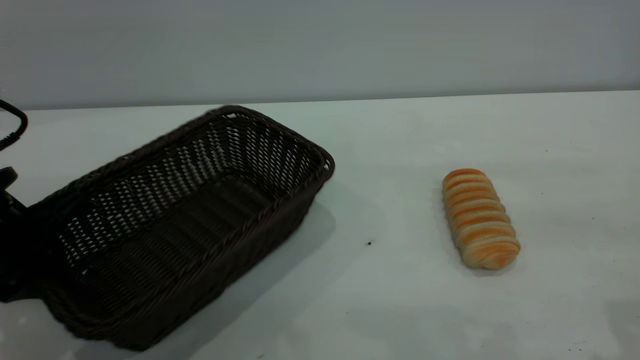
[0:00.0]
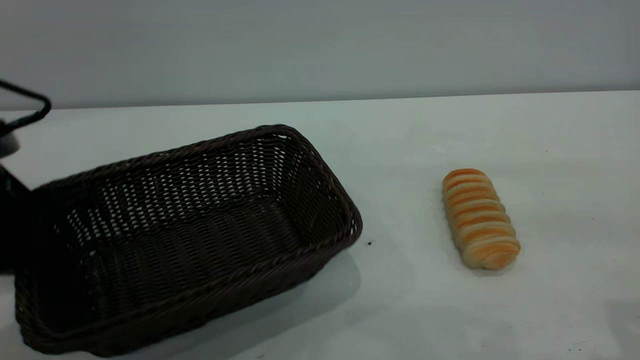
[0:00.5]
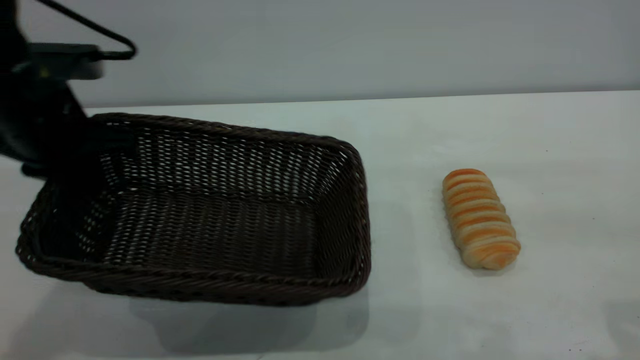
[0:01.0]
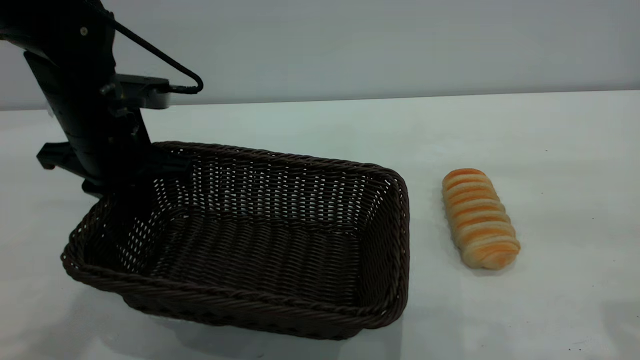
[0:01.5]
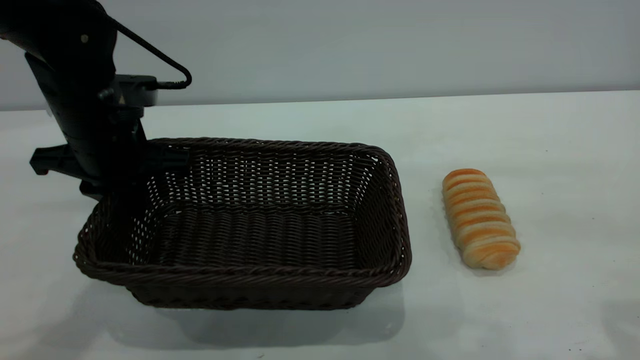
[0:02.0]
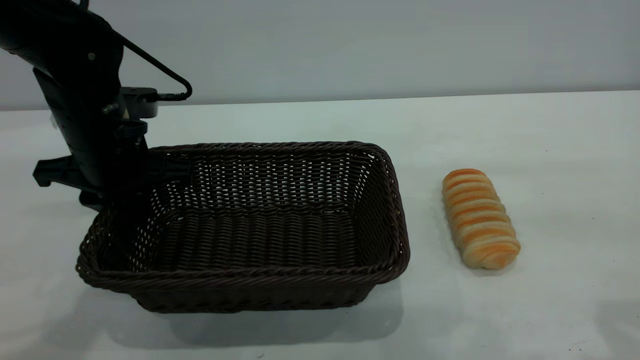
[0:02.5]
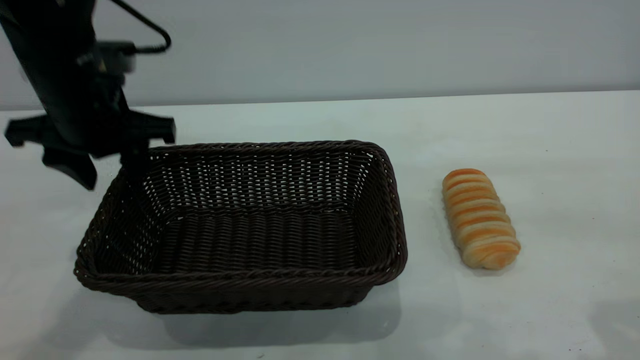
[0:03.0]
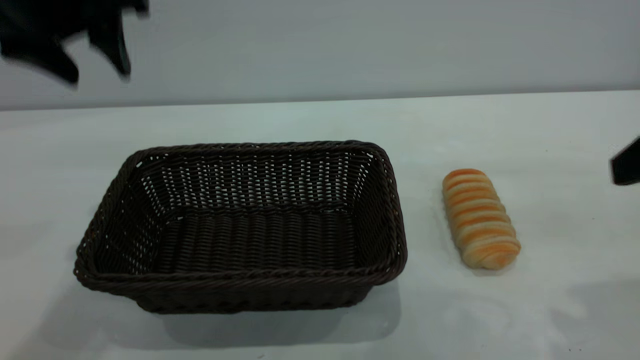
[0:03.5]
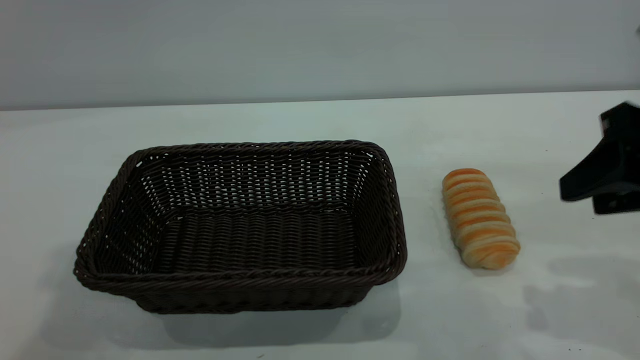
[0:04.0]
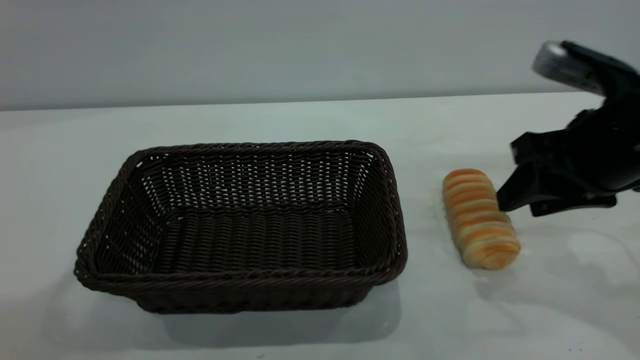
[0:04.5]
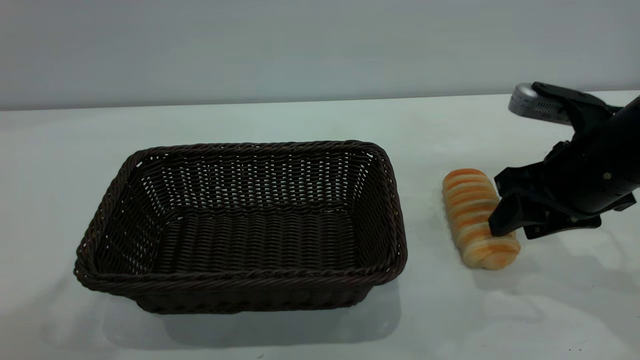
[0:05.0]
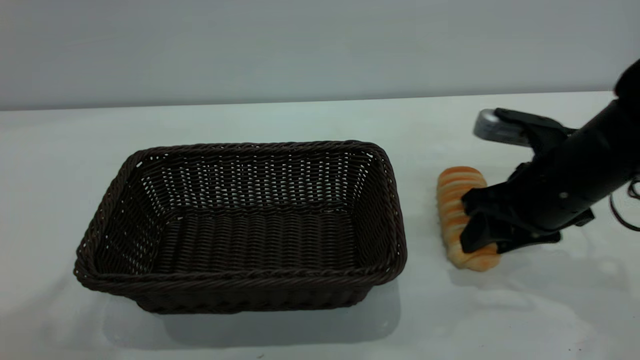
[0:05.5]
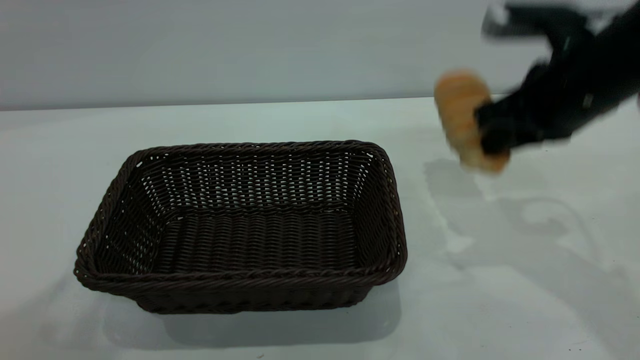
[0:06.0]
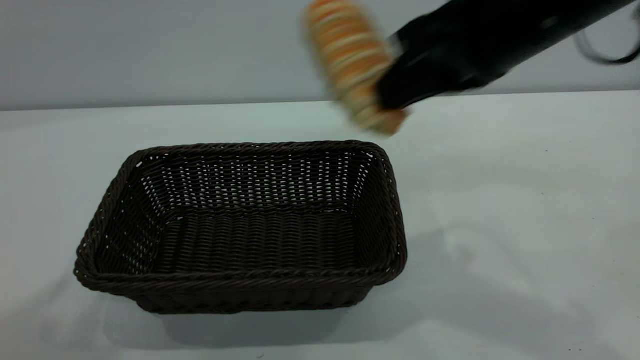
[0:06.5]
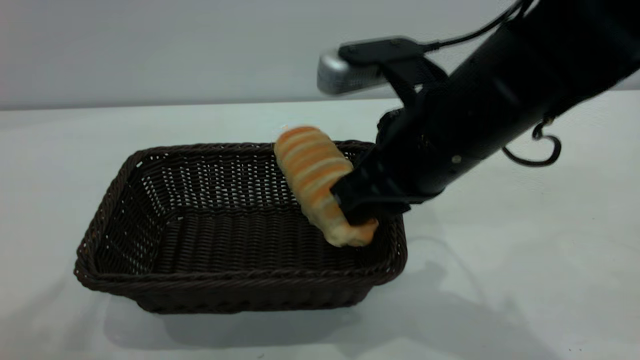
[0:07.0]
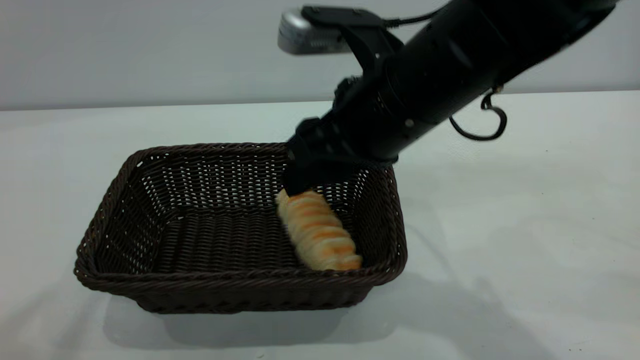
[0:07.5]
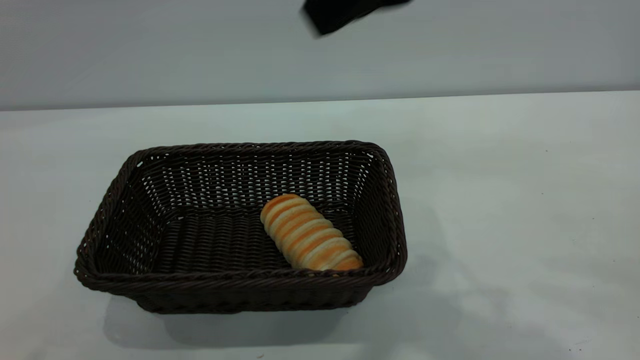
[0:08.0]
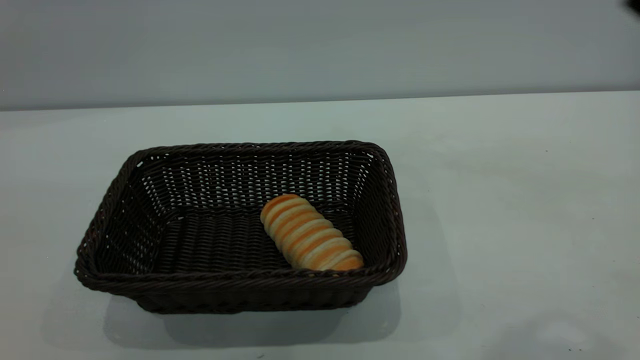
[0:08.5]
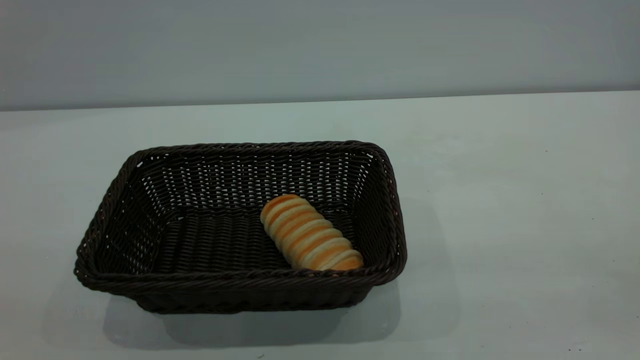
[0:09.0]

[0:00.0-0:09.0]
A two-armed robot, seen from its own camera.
Task of the whole recording: One hand grasps the black basket and places it in the middle of the table, while the other hand picks up the long bread and puts it into the black basket.
Step, 0:00.0 to 0:03.0: Move the basket to the center of view.
Step, 0:06.5 to 0:07.5: place the bread into the basket.
0:00.0 to 0:02.0: The left gripper shifts about 15 cm forward and to the right.
0:02.0 to 0:04.5: The right gripper shifts about 15 cm downward, forward and to the left. Meanwhile the left gripper is displaced upward and backward by roughly 40 cm, and opens.
0:04.5 to 0:07.0: The right gripper swings up and down, some 15 cm each way, with 2 reversals, and closes.
0:07.0 to 0:09.0: The right gripper travels backward, to the right and upward by approximately 35 cm, and opens, while the left gripper shifts some 25 cm backward, downward and to the left.

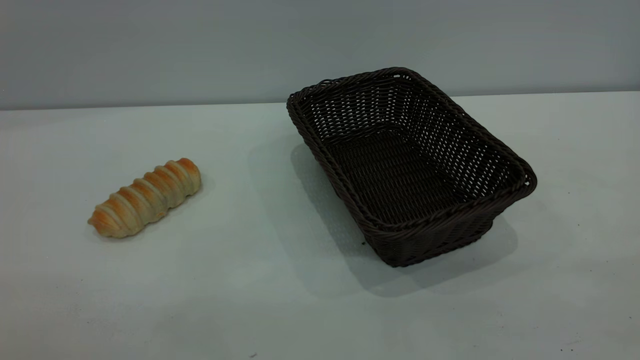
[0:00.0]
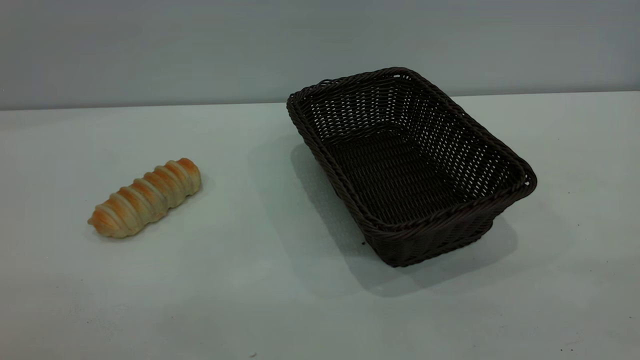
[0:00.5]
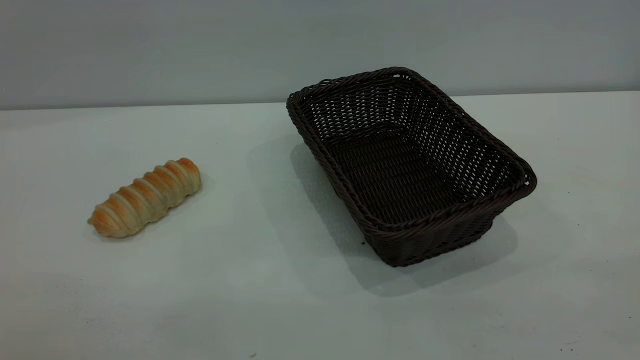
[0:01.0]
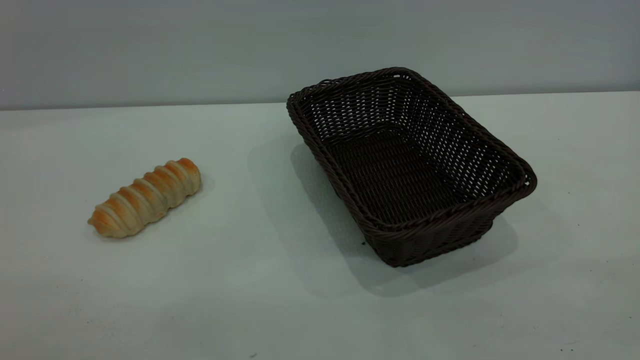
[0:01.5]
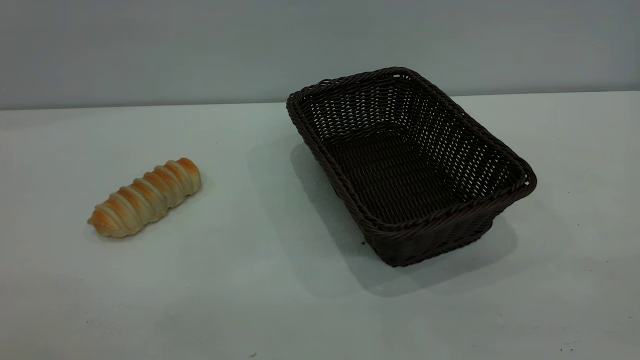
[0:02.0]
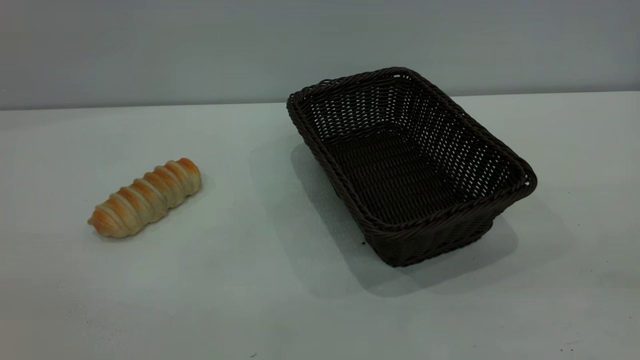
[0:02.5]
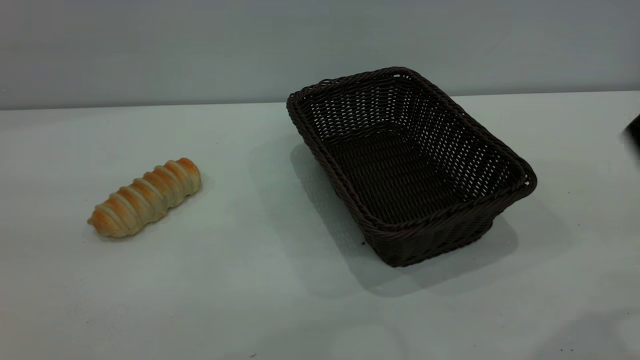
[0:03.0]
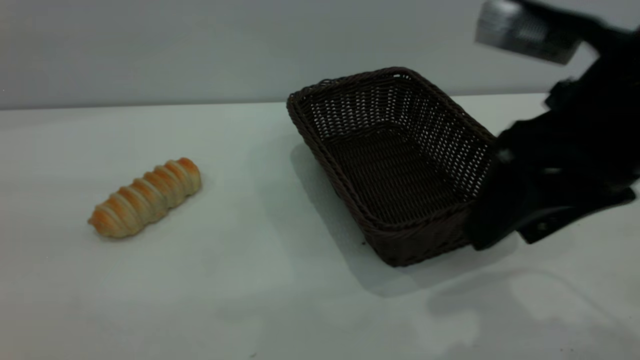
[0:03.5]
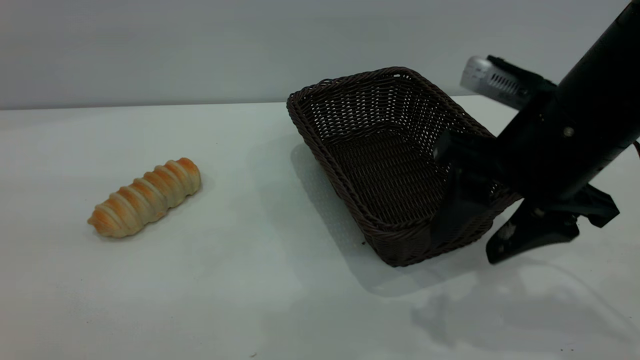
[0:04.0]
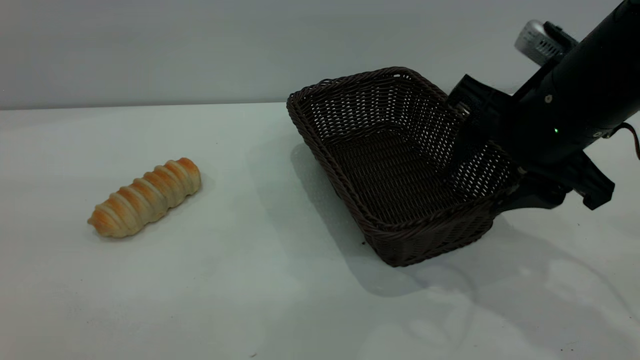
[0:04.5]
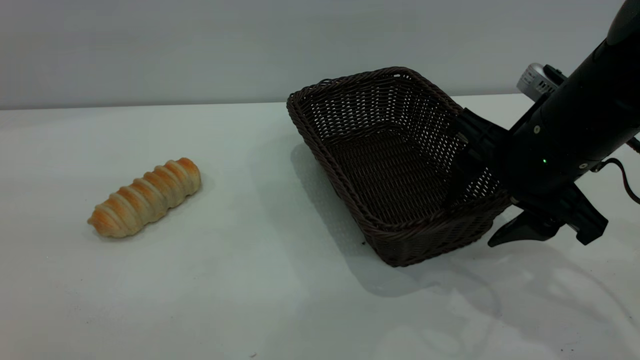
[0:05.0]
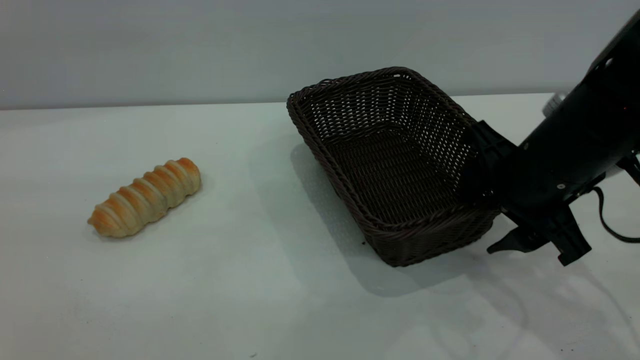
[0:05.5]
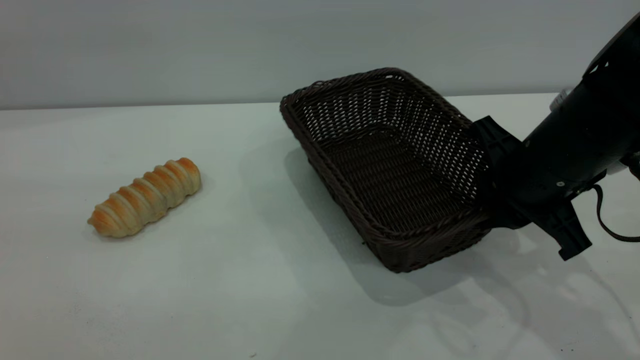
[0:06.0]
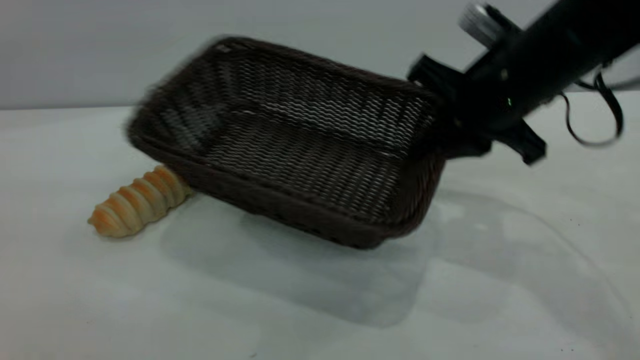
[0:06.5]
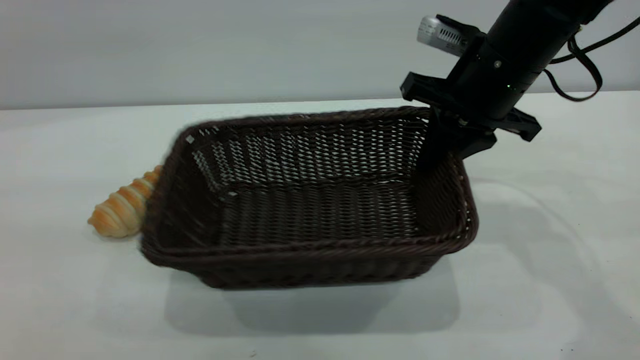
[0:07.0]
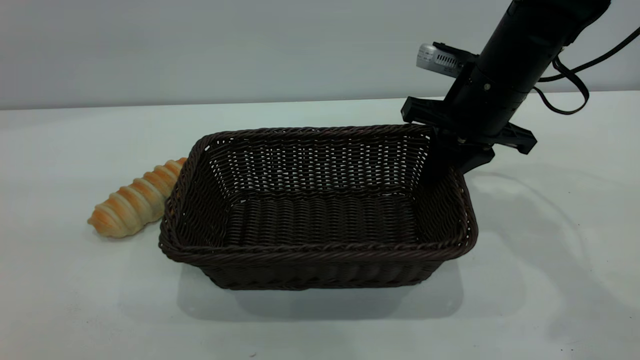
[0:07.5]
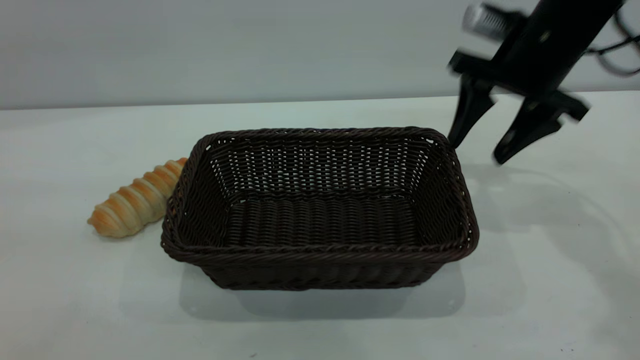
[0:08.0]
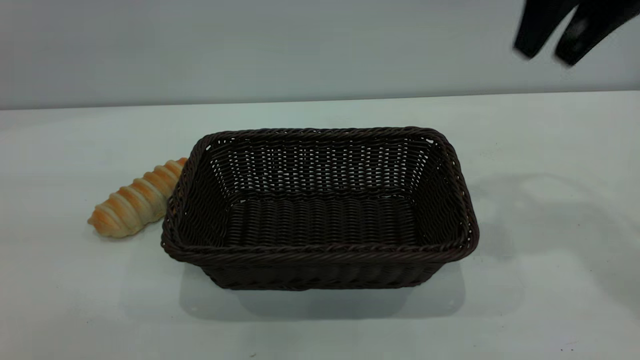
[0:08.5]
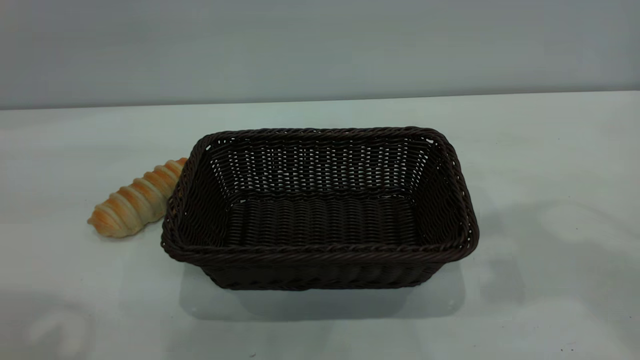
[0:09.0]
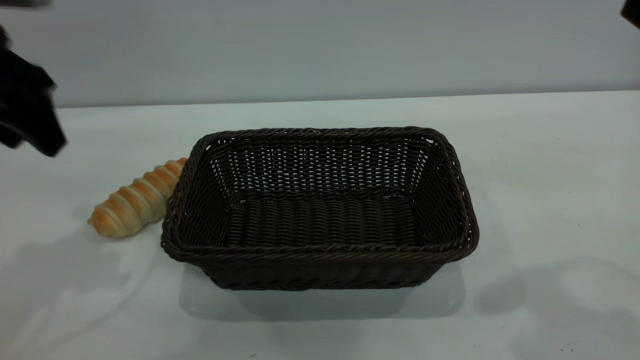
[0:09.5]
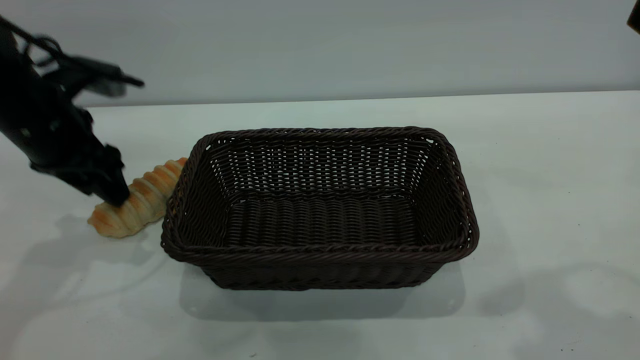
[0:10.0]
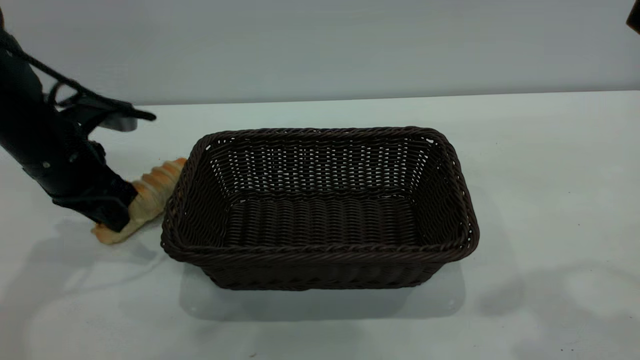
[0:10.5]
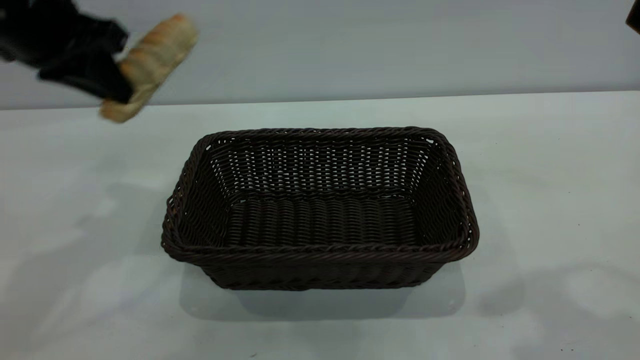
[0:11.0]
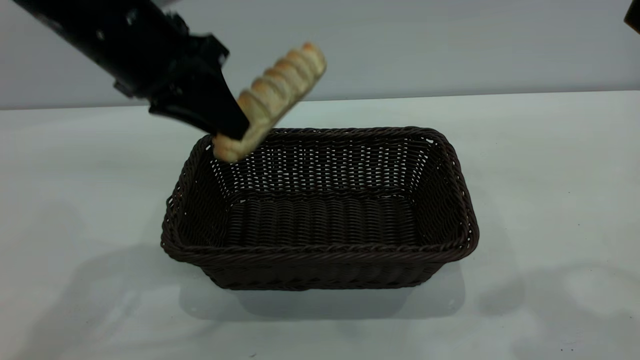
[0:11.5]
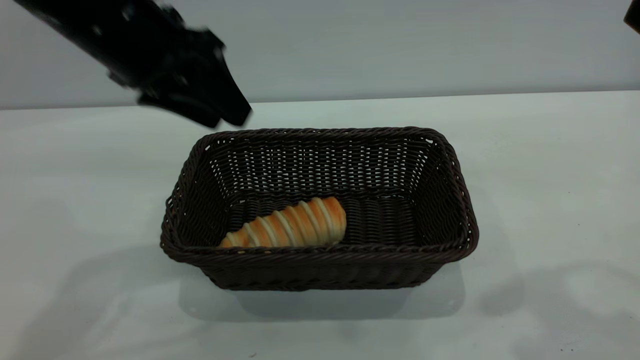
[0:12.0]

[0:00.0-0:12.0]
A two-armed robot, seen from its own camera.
Task of the whole recording: One hand grasps the black basket and places it in the middle of the table, while the other hand picks up the long bread and puts it into the black basket.
Step, 0:00.0 to 0:08.0: Move the basket to the center of view.
Step, 0:11.0 to 0:12.0: place the bread into the basket.
0:02.0 to 0:04.0: The right gripper is displaced forward, downward and to the left by some 35 cm.
0:04.0 to 0:06.0: The right gripper travels downward by approximately 5 cm, and closes up.
0:06.0 to 0:08.0: The right gripper moves forward and upward, approximately 15 cm, and opens.
0:08.0 to 0:10.0: The left gripper travels forward and downward by about 35 cm. The right gripper is displaced backward and upward by roughly 25 cm.
0:10.0 to 0:12.0: The left gripper shifts about 15 cm upward and to the right, and closes, then opens again.
